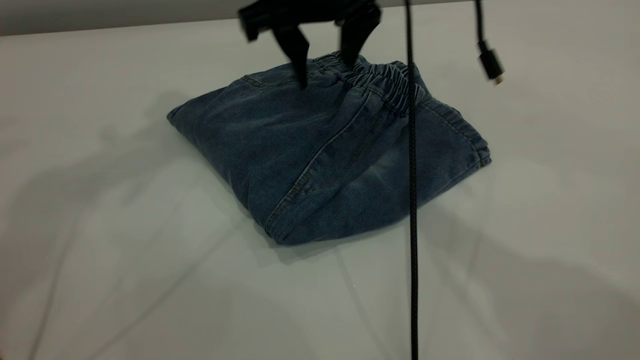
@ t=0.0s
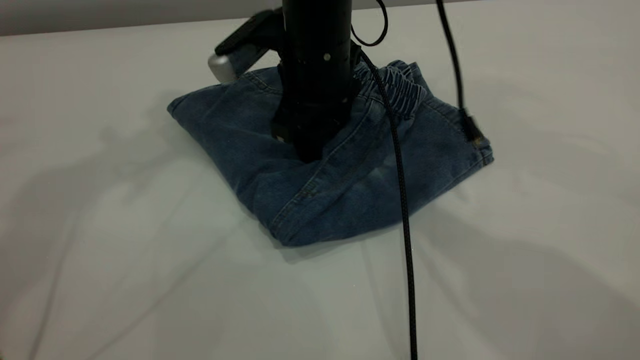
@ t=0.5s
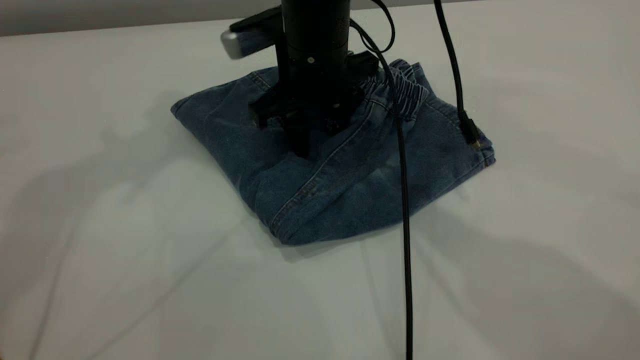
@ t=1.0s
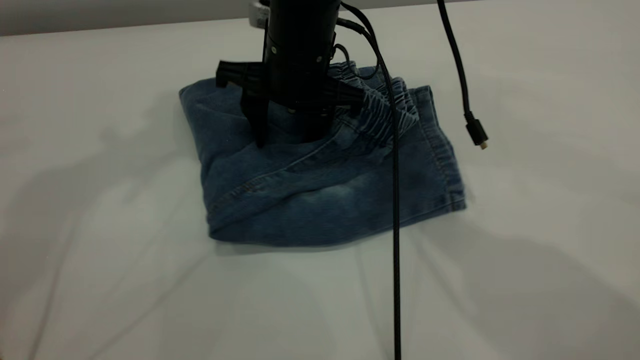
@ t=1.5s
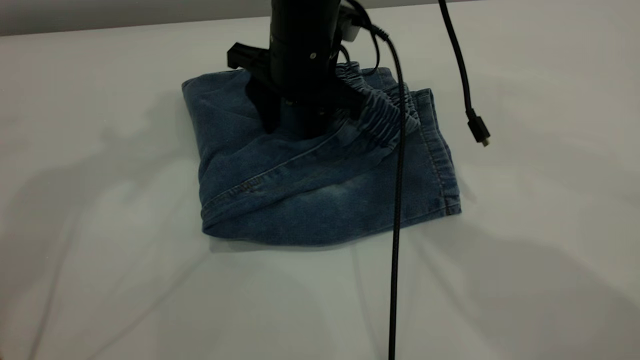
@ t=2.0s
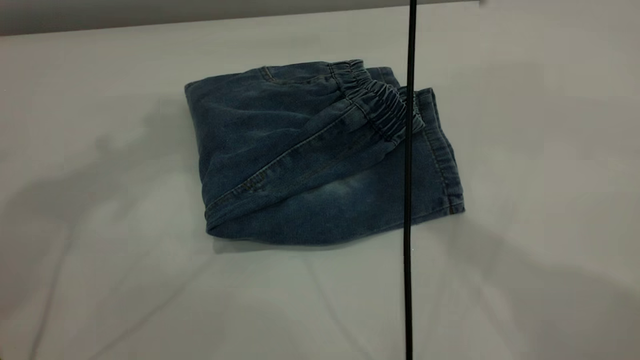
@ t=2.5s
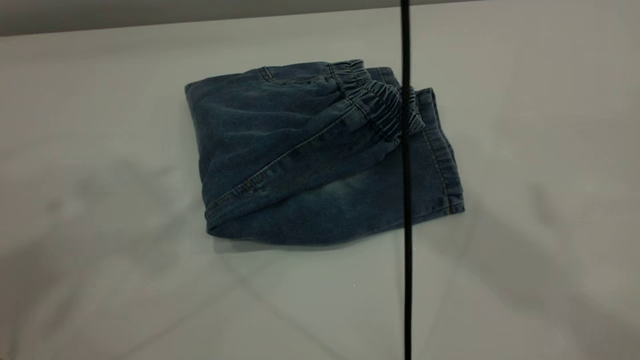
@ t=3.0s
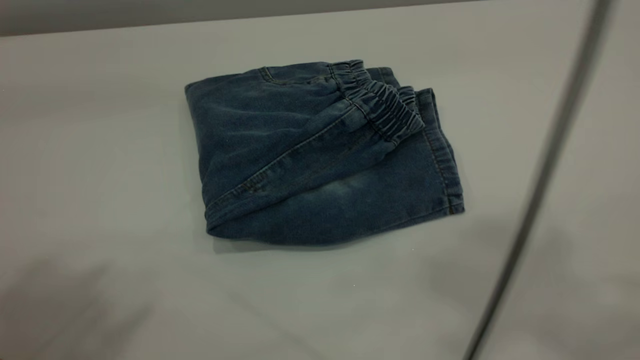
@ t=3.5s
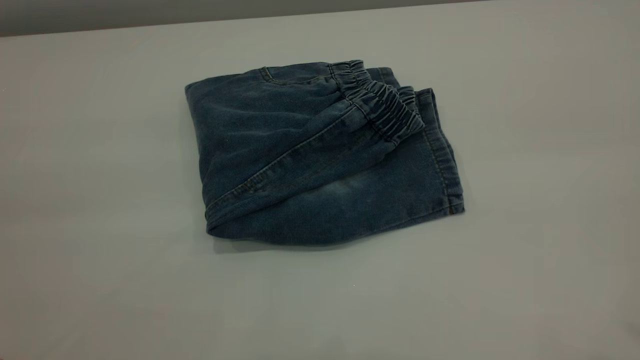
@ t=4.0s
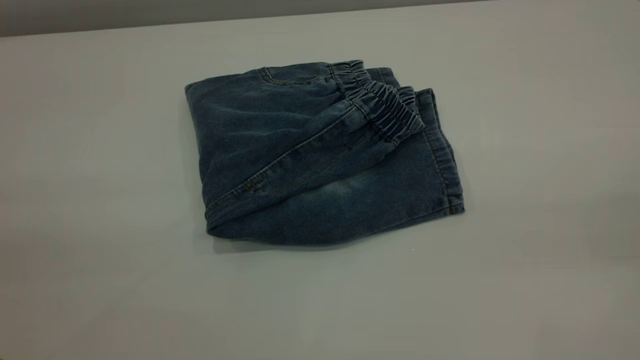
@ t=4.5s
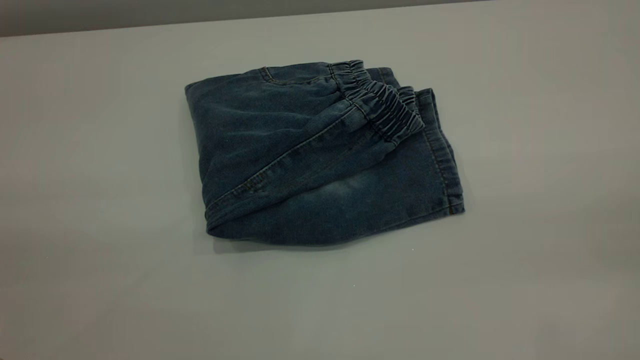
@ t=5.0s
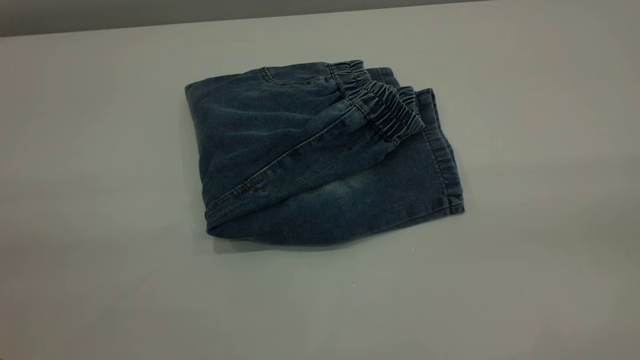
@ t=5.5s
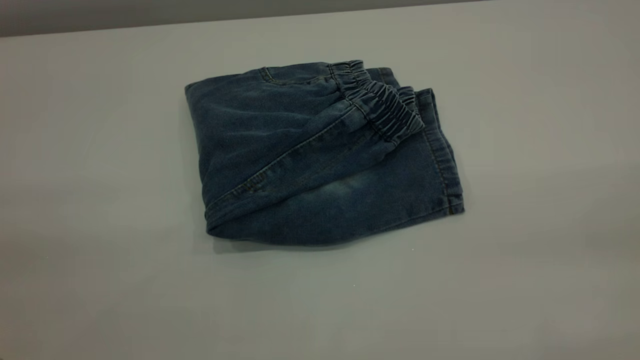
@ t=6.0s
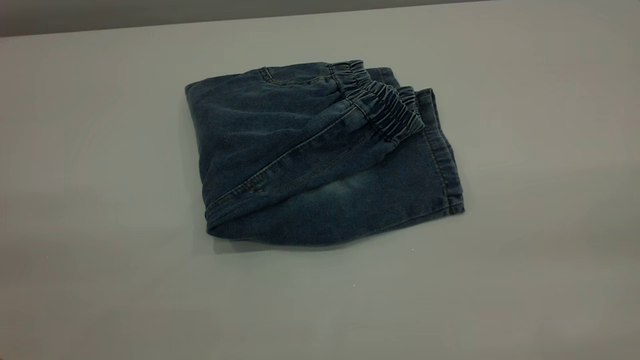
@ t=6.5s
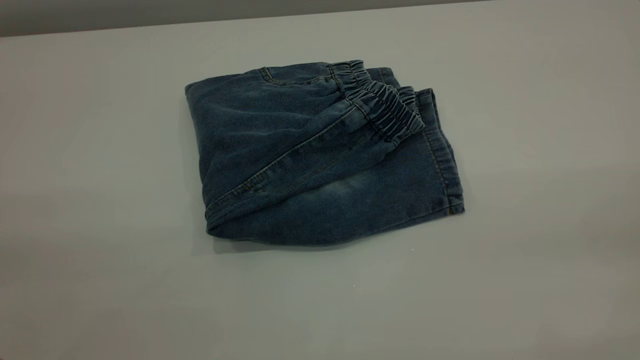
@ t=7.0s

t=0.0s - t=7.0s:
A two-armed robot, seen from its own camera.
t=0.0s - t=2.0s: The right gripper heads downward, covering about 5 cm.
t=2.0s - t=3.5s: The left gripper heads backward, covering approximately 25 cm. Meanwhile the right gripper travels upward, backward and to the right by roughly 50 cm.
t=3.5s - t=5.0s: The right gripper travels downward, backward and to the right by about 30 cm.
